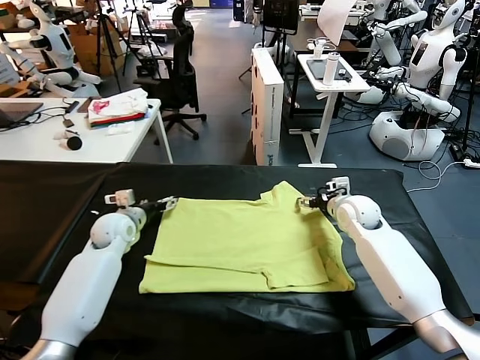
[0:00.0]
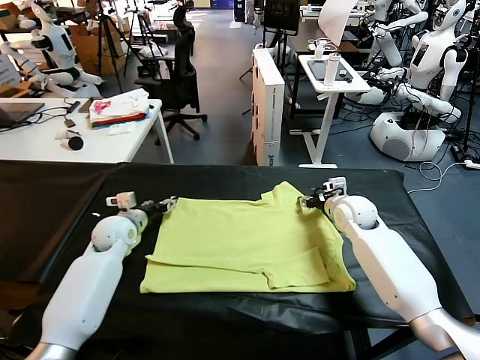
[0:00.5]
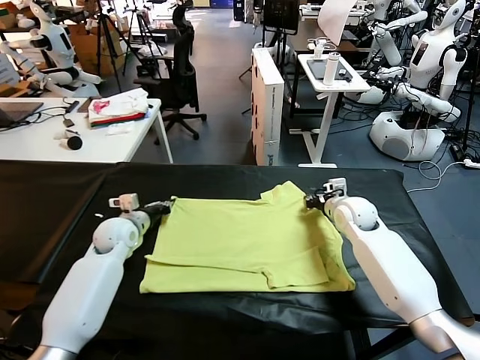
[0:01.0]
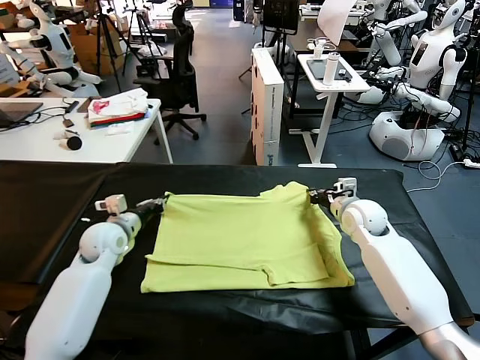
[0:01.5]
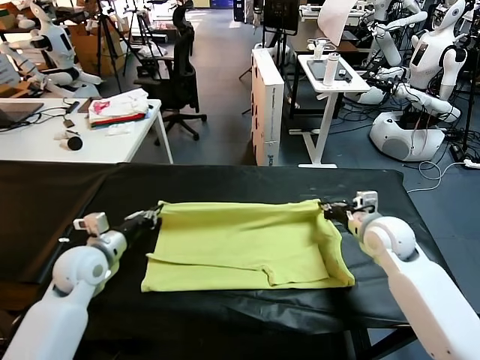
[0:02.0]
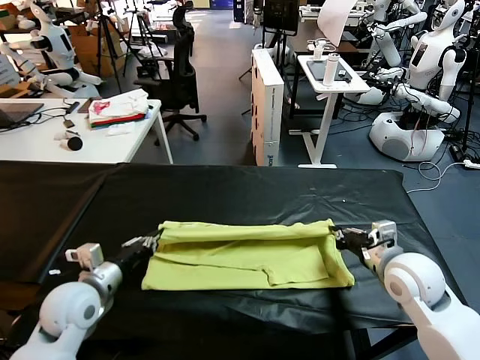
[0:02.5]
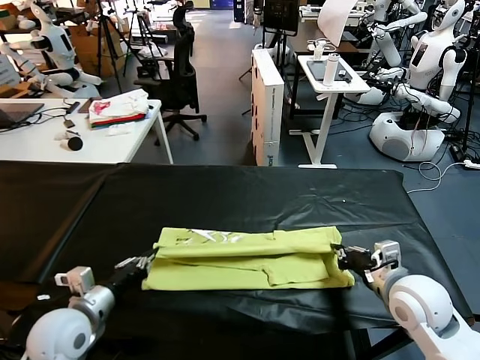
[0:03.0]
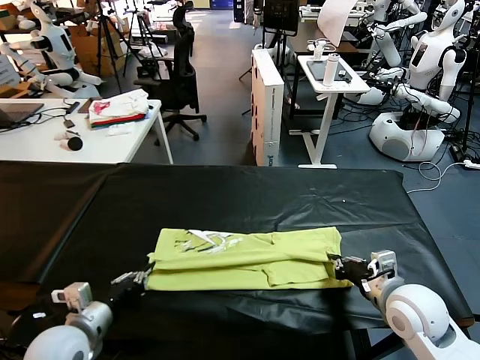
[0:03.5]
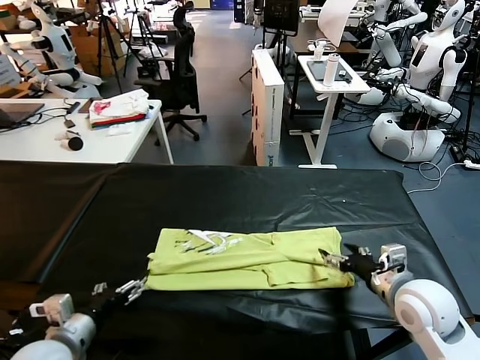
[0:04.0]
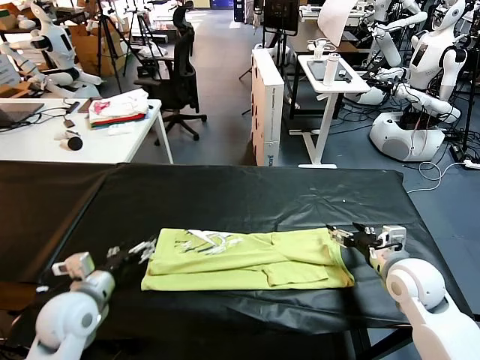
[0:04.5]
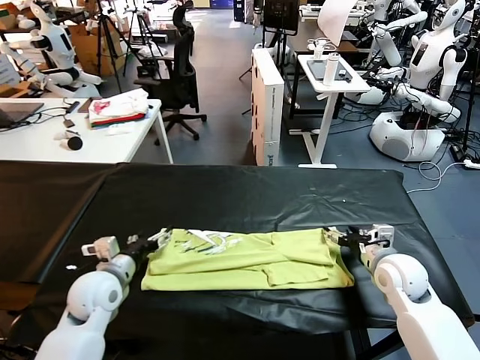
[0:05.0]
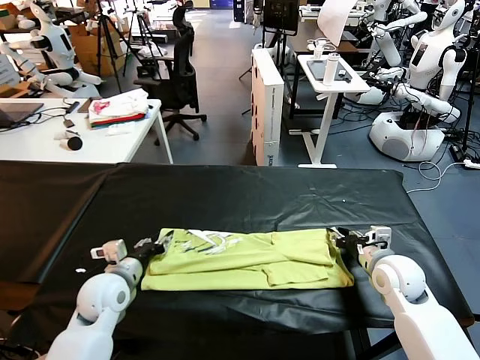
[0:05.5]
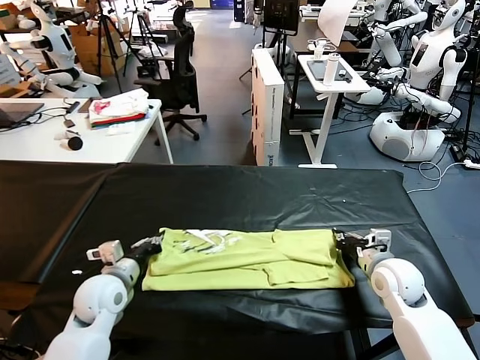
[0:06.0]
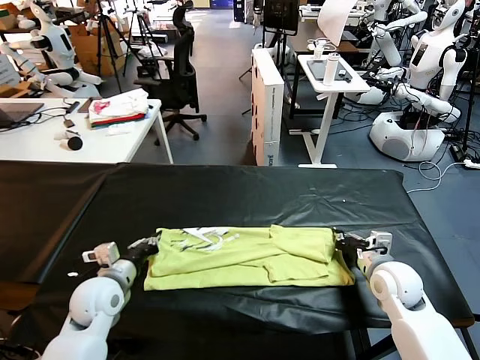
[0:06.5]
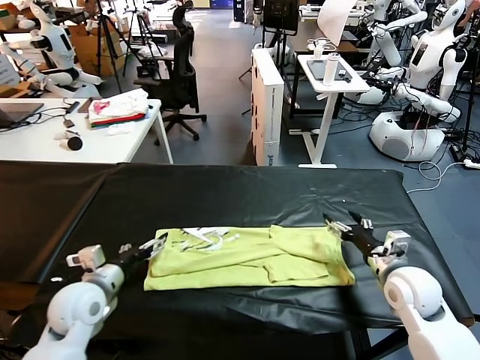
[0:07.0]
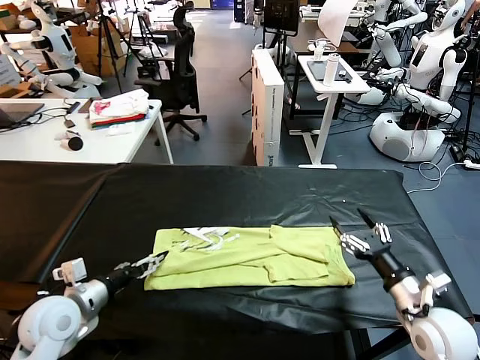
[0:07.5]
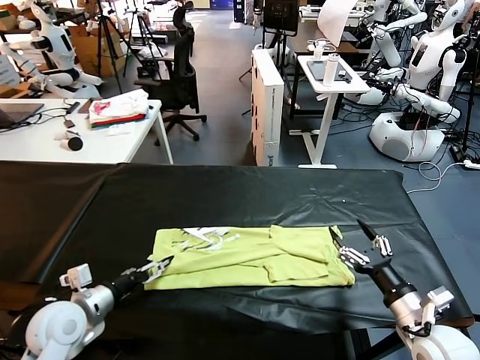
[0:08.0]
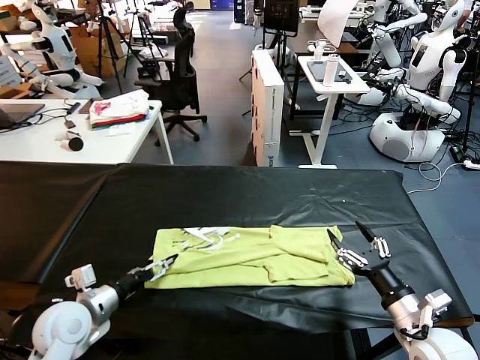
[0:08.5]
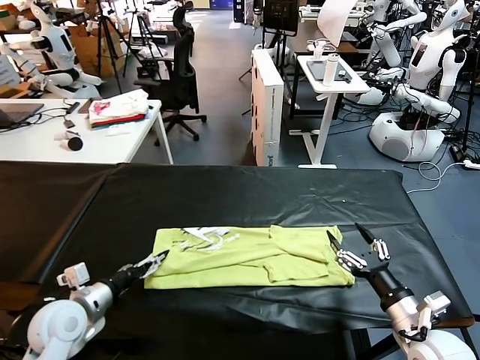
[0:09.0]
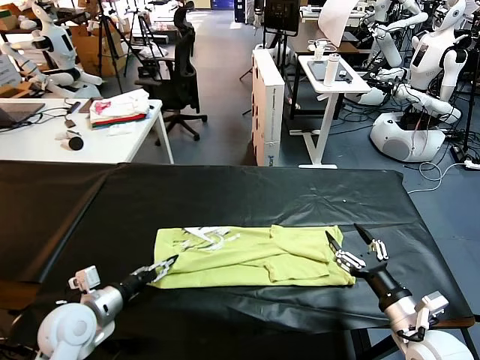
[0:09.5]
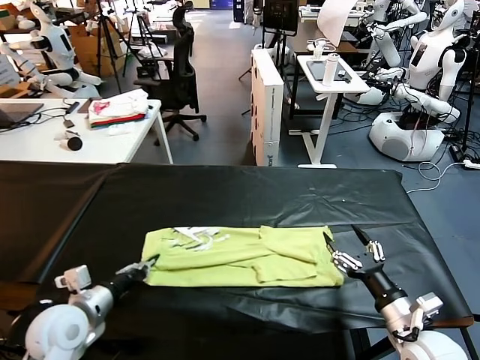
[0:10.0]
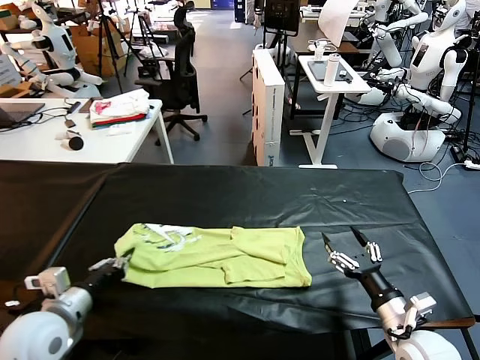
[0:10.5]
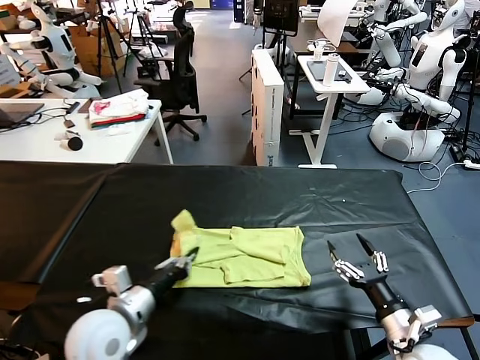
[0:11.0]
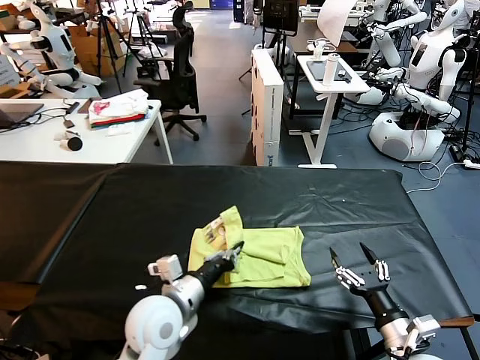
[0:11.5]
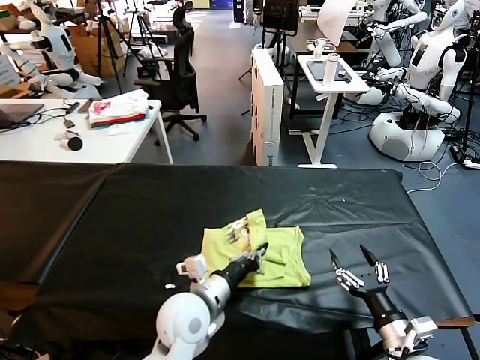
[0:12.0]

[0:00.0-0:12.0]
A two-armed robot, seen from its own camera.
Task of the whole recording: fold and organize the clothes.
Step, 0:01.5 to 0:03.5: use both grippers to drag the upper edge of the fabric backward and fold it over the lower edge.
Step, 0:04.0 to 0:09.5: use the left gripper to clamp the left edge of the fabric.
0:00.0 to 0:02.0: The two grippers go about 15 cm backward. The right gripper closes. The left gripper closes up.
0:02.0 to 0:04.0: The left gripper is displaced backward by about 15 cm, and opens its fingers. The right gripper is displaced backward by some 10 cm, and opens.
0:04.0 to 0:06.0: The left gripper travels forward by some 15 cm, and closes its fingers. Meanwhile the right gripper travels downward and forward by about 10 cm, and closes up.
0:06.0 to 0:08.0: The right gripper moves backward, approximately 15 cm, and opens its fingers; the left gripper shifts some 5 cm backward, and opens up.
0:08.0 to 0:10.0: The left gripper closes its fingers.
0:10.0 to 0:12.0: The left gripper travels to the right by about 25 cm.

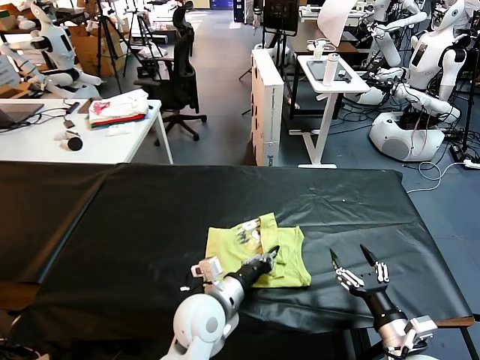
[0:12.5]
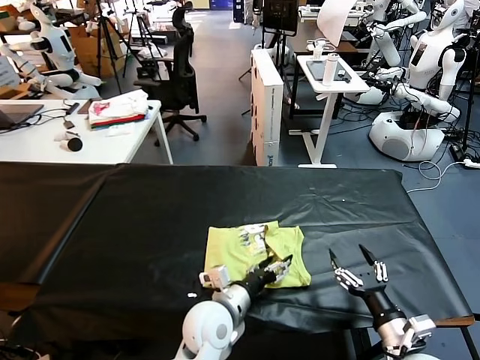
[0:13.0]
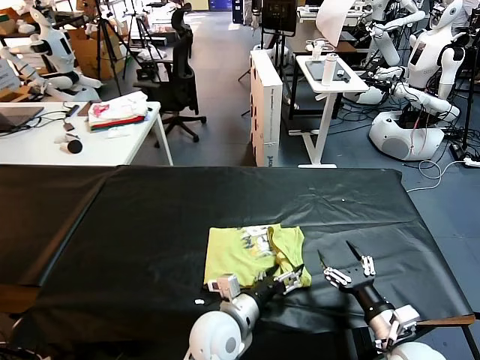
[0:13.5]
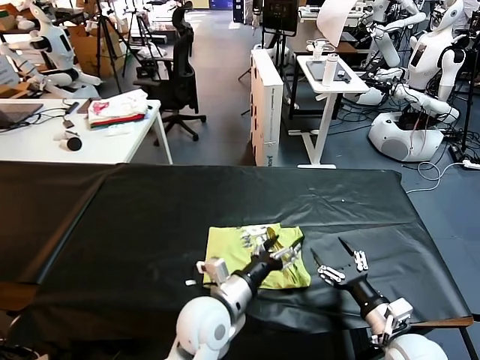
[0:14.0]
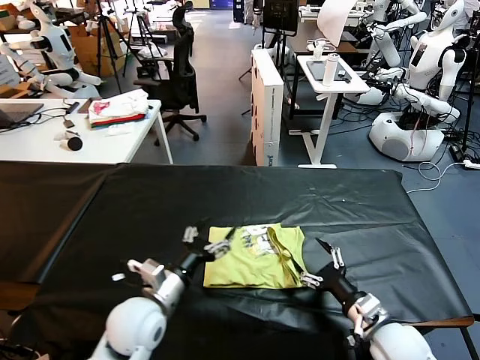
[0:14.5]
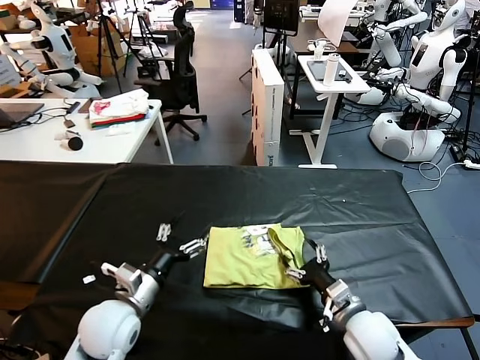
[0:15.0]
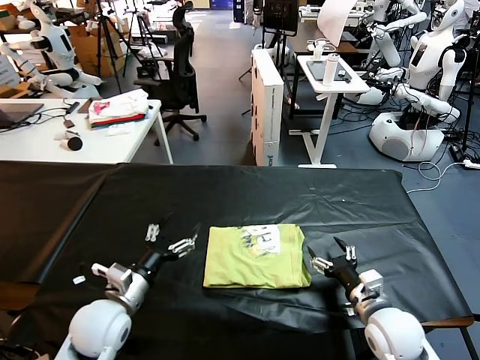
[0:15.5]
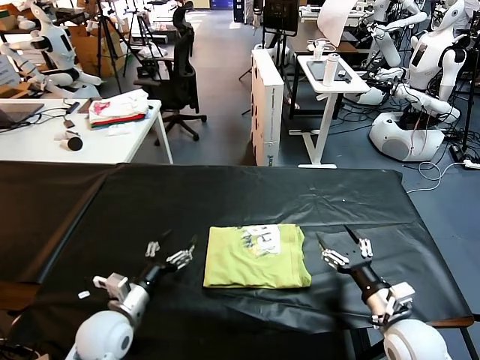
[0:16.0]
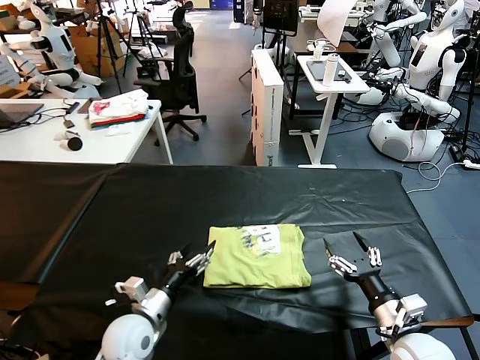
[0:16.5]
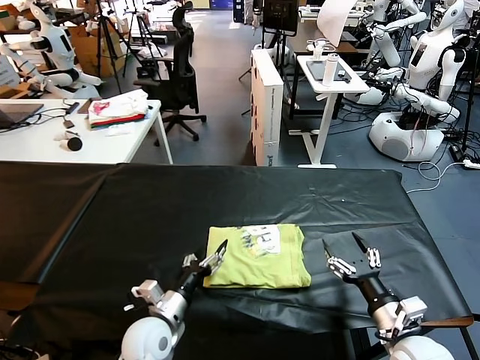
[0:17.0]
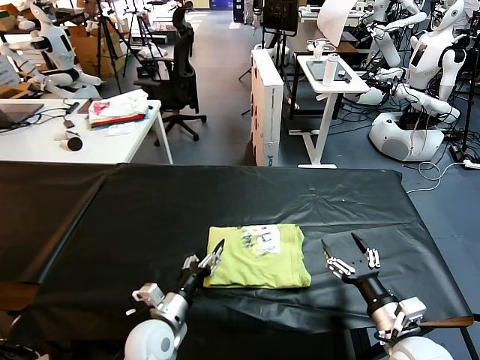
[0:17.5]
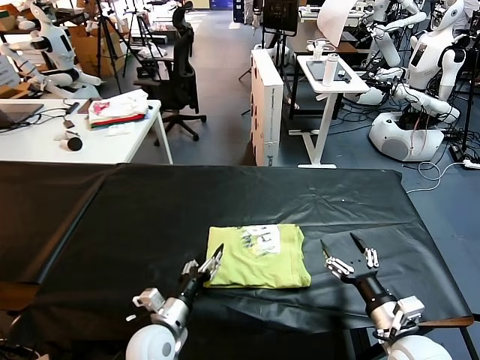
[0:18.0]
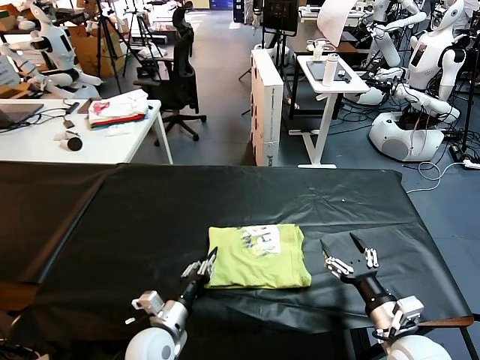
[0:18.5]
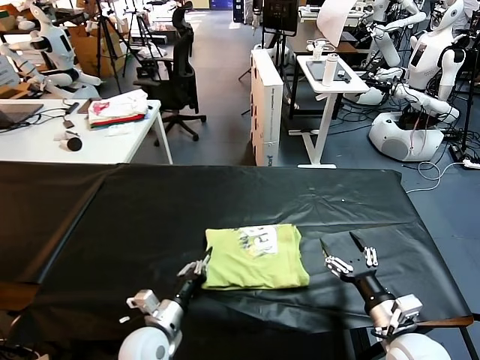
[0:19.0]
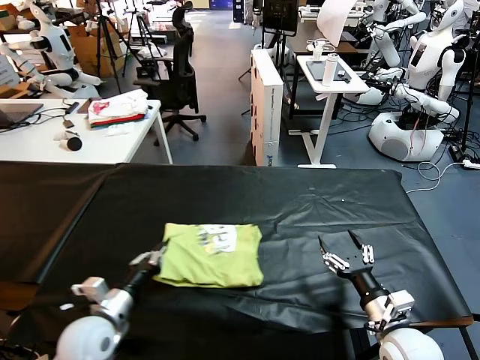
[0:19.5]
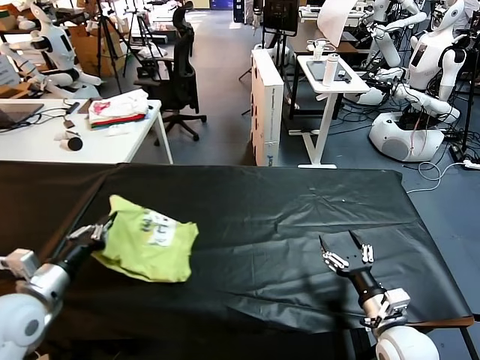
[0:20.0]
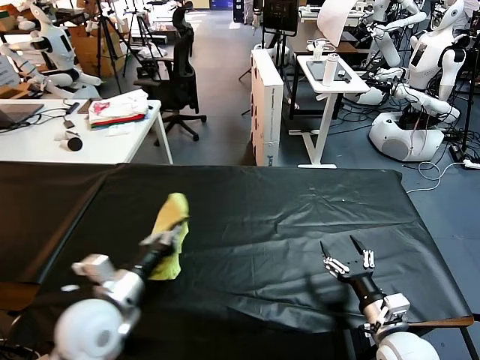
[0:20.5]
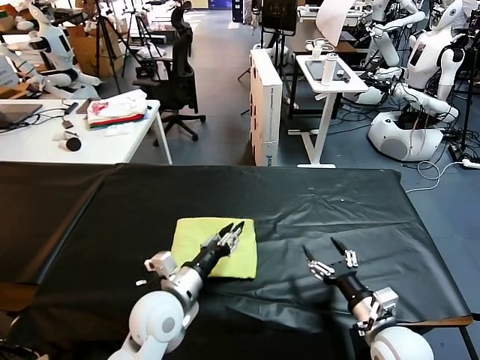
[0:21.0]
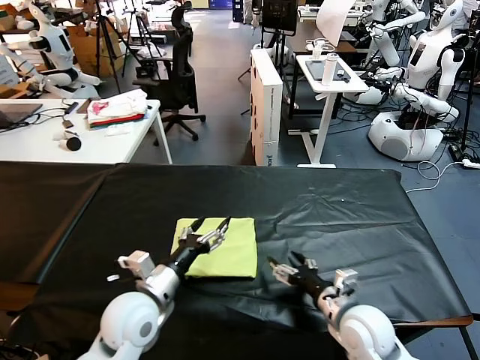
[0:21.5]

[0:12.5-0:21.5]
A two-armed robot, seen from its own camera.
Task of the whole recording: fold and organize the clothes.
Step, 0:14.0 to 0:21.0: Flip the folded clothes over with left gripper.
0:12.5 to 0:14.5: The right gripper moves forward, some 5 cm, while the left gripper shifts about 10 cm to the left, and opens its fingers.
0:14.5 to 0:17.0: The left gripper heads downward, covering roughly 10 cm.
0:17.0 to 0:19.5: The left gripper is displaced to the left by approximately 10 cm, and closes its fingers.
0:19.5 to 0:21.5: The left gripper is displaced to the right and upward by about 10 cm, and opens its fingers. The right gripper travels to the left by roughly 5 cm.

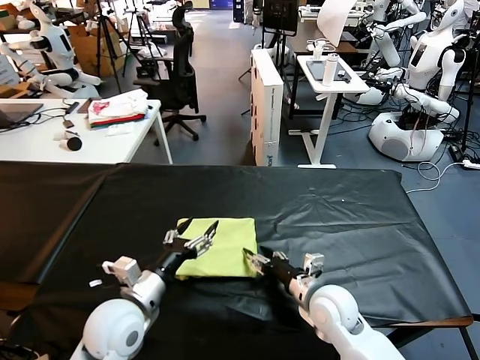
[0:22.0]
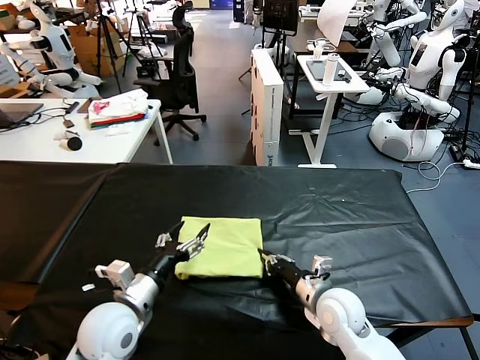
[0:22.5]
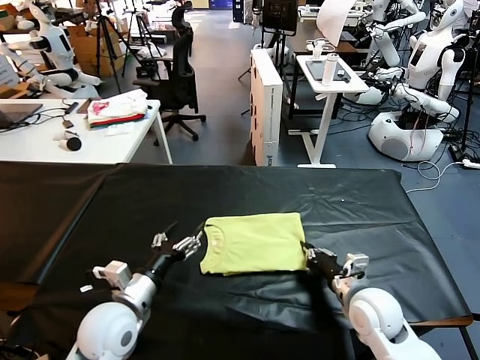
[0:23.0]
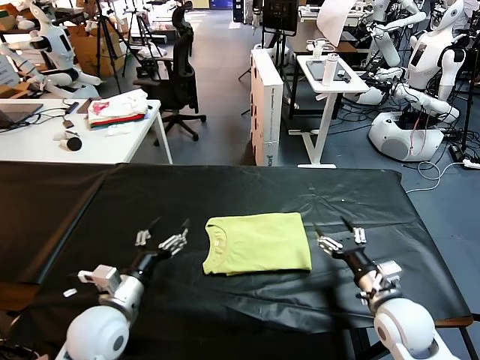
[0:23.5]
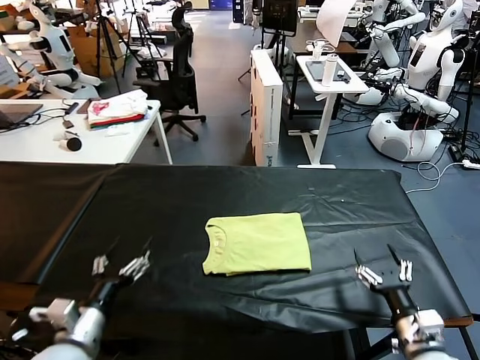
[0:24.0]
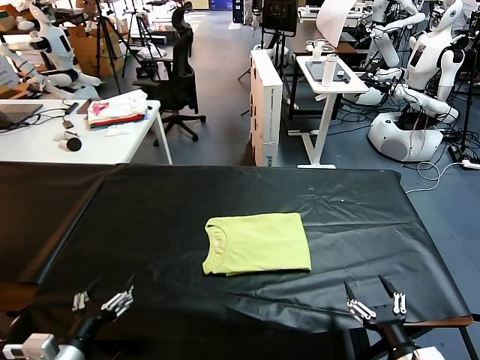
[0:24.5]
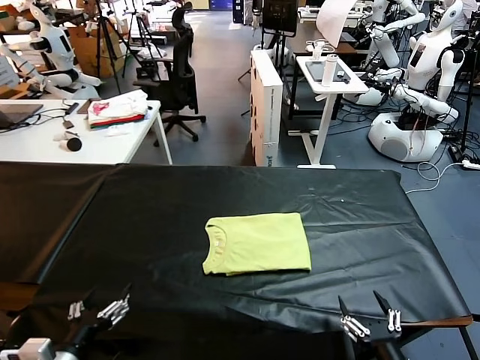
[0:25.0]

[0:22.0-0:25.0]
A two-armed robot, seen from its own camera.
Task of the whole recording: fold and organize the clothes.
0:22.0 to 0:23.5: The right gripper moves to the right, roughly 10 cm, and closes and opens again.
0:23.5 to 0:25.0: The left gripper moves backward and to the left, about 15 cm; the right gripper shifts about 20 cm backward.

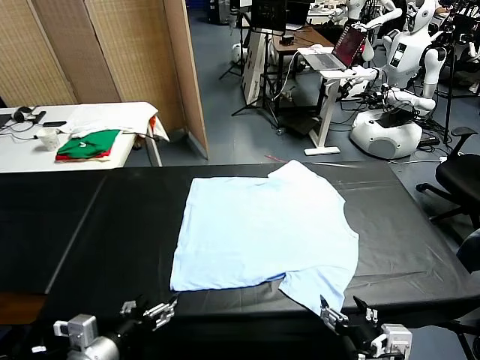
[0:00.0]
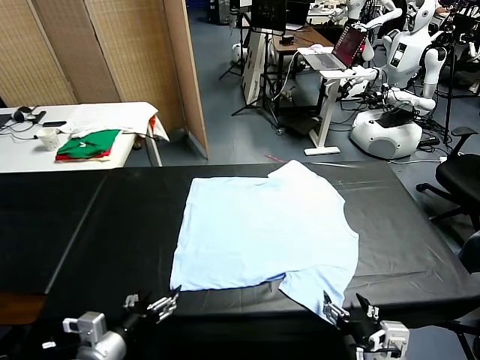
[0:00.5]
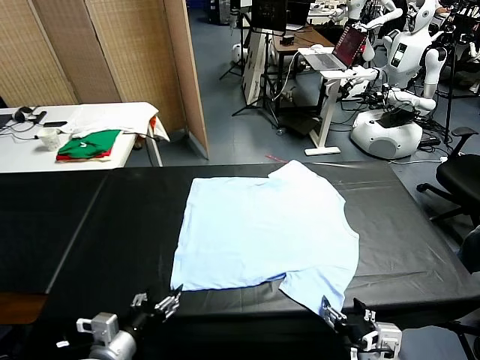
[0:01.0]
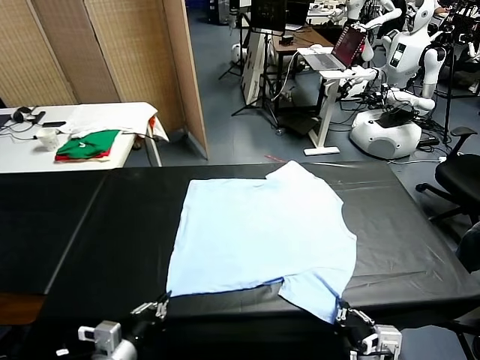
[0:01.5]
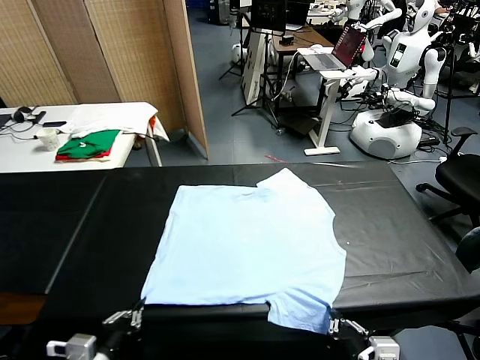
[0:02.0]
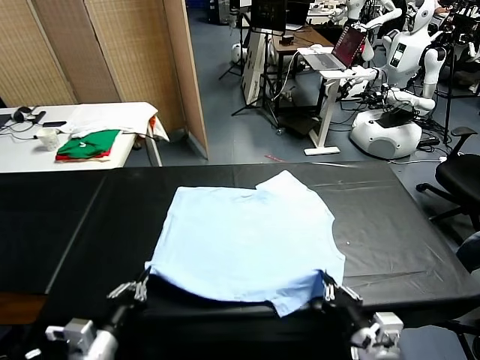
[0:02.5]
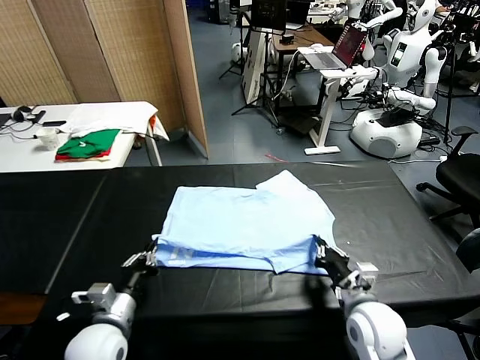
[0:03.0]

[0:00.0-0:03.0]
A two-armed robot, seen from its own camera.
Task of the whole recording: fold and organize the clothes.
Step, 0:00.0 to 0:01.0: use both grippers simultaneously to clamp the lower edge of the clothing fabric.
0:01.5 to 0:03.0: The right gripper moves forward, some 20 cm; the left gripper heads forward, covering about 10 cm.
